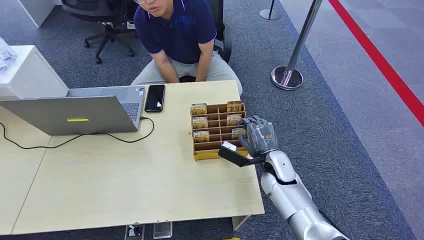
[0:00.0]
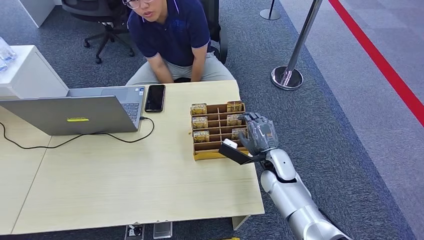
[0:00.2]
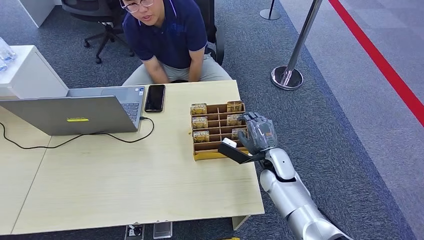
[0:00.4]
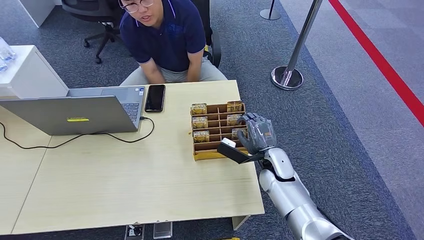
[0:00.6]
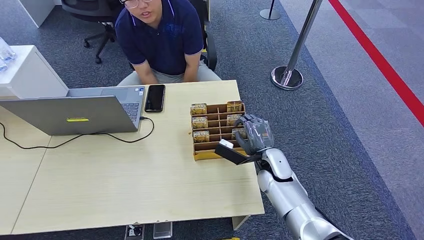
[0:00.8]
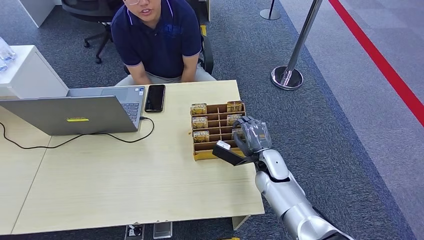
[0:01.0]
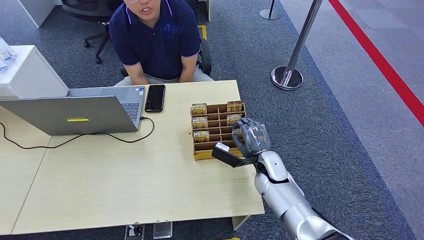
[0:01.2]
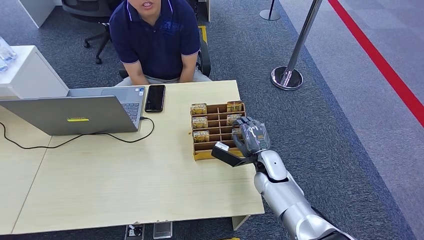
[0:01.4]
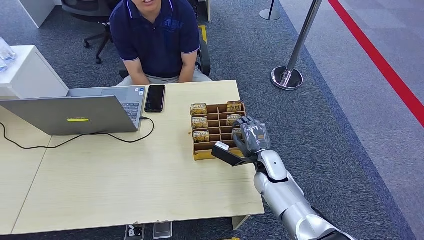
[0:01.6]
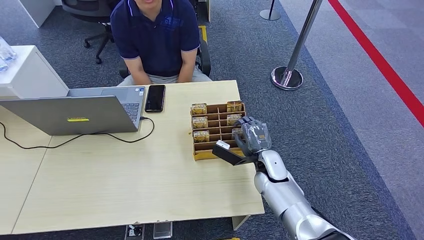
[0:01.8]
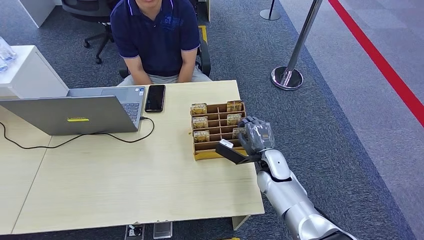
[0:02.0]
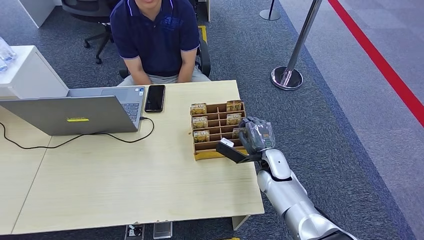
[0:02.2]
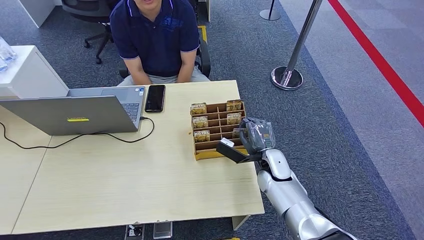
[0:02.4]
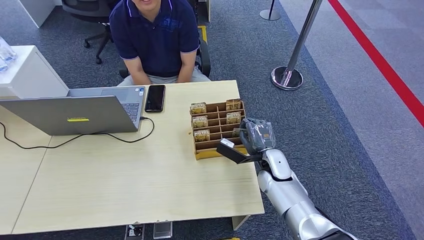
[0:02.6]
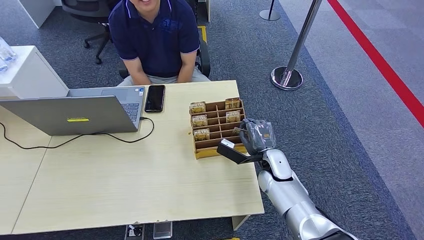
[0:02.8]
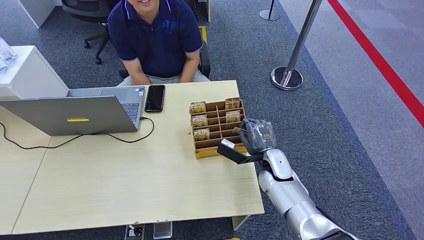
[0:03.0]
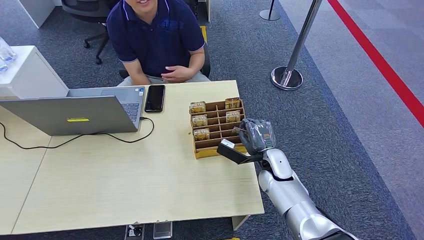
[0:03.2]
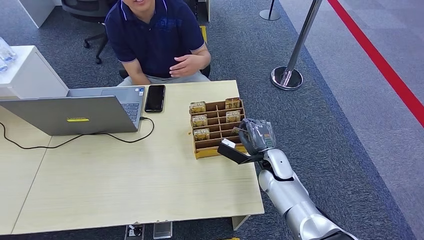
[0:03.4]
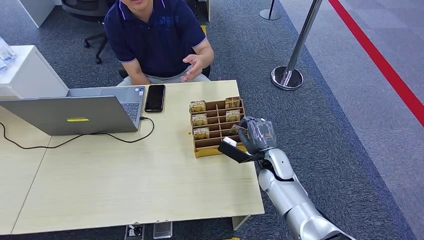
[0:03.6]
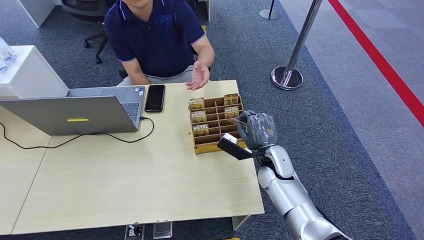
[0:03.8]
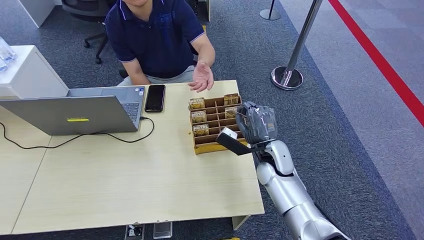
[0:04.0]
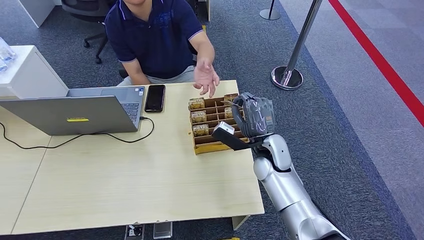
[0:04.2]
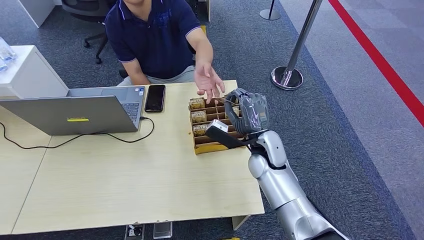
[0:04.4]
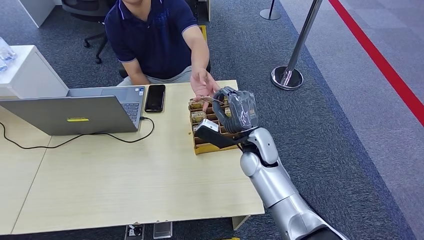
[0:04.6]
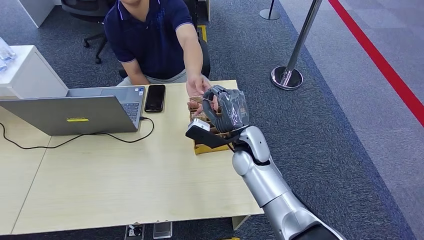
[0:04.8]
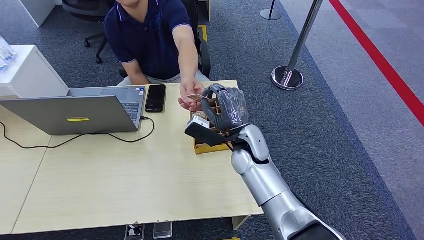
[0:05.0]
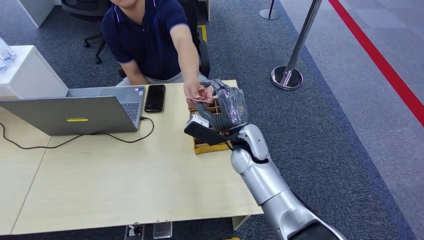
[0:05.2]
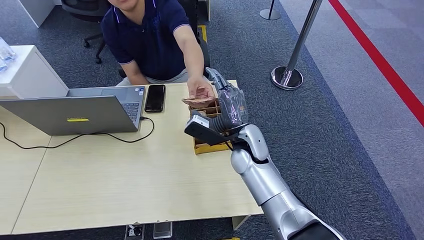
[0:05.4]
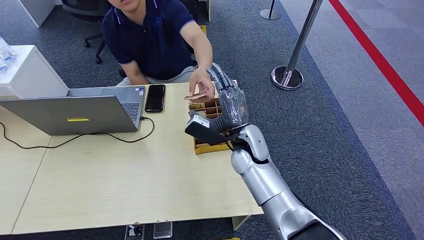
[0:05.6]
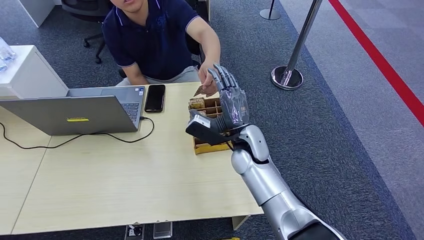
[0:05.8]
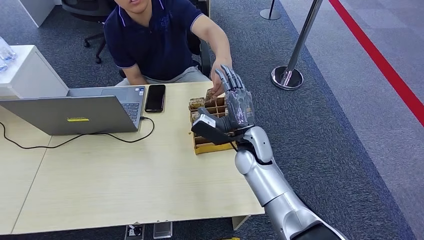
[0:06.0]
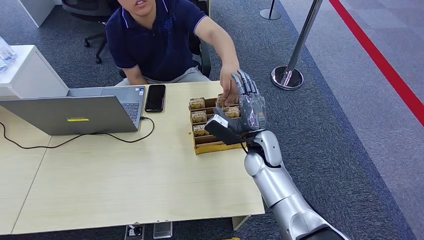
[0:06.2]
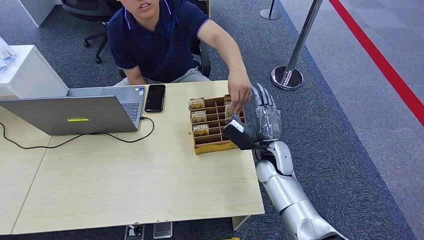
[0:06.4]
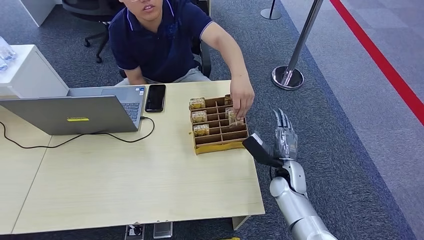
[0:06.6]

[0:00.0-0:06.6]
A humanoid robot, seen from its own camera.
Step, 0:00.0 to 0:04.2: Pick up the room card from the card holder.
Step, 0:04.4 to 0:06.6: Hand the room card to the target.
0:01.6 to 0:03.2: Neither hand changes place.
0:03.2 to 0:05.0: The right hand travels upward and to the left by about 15 cm.
0:05.0 to 0:06.6: The right hand heads to the right and downward, covering about 20 cm.
